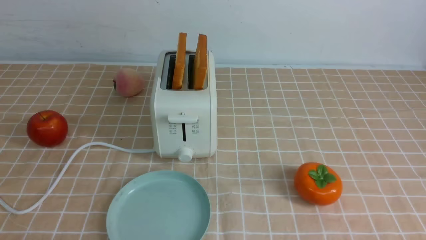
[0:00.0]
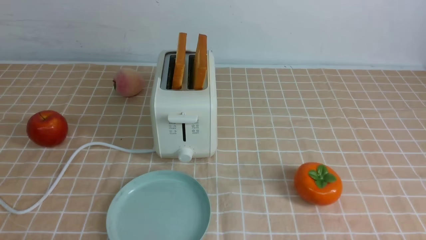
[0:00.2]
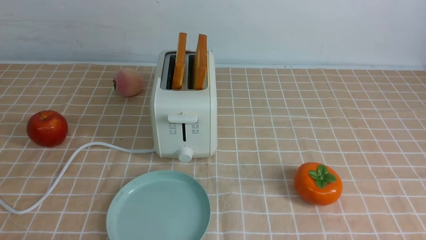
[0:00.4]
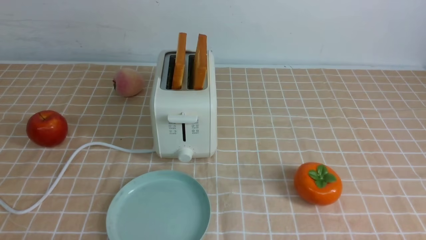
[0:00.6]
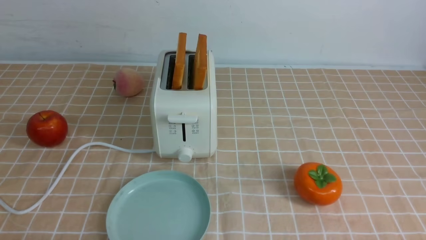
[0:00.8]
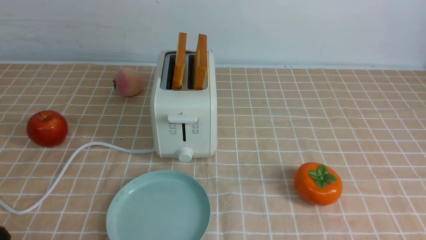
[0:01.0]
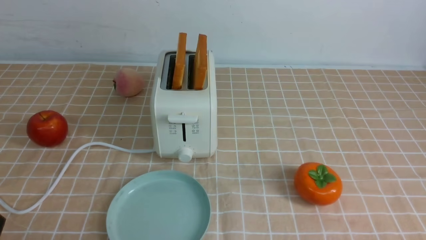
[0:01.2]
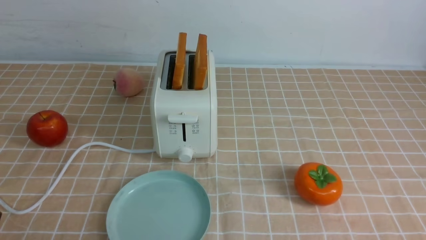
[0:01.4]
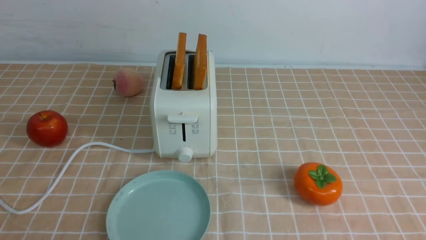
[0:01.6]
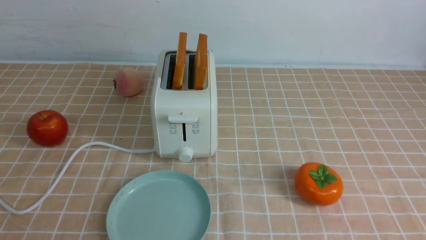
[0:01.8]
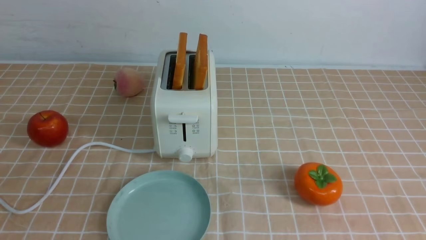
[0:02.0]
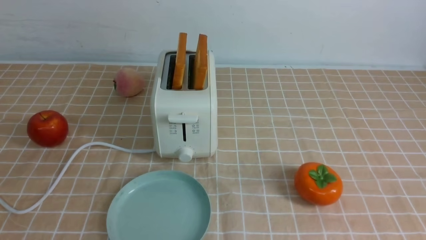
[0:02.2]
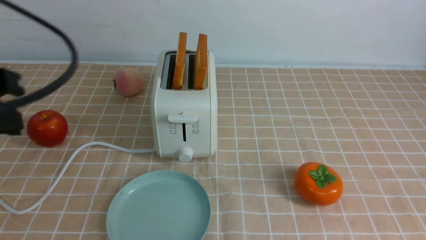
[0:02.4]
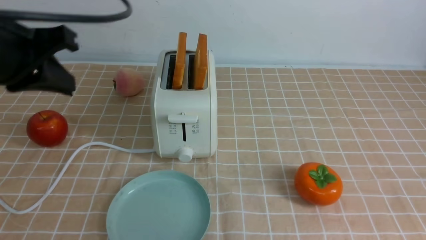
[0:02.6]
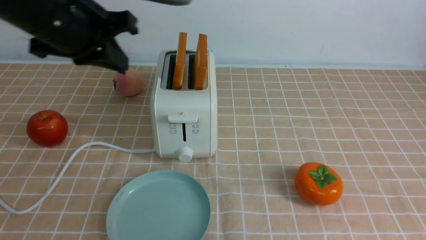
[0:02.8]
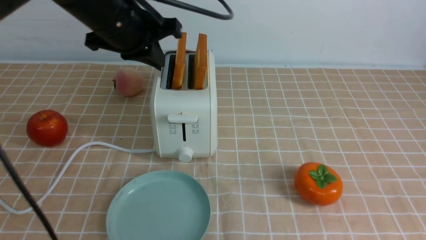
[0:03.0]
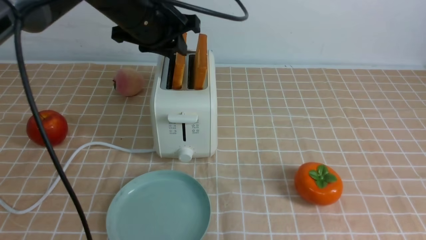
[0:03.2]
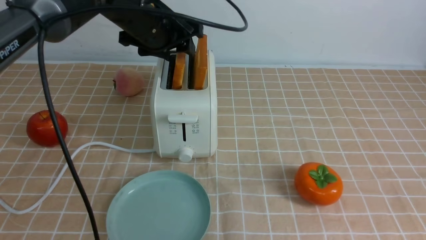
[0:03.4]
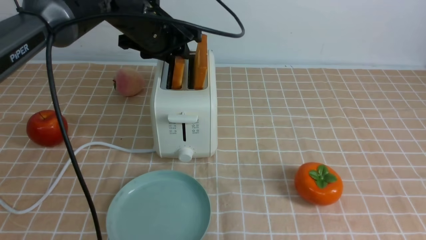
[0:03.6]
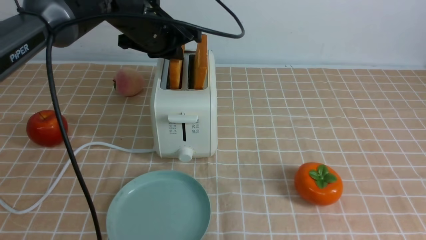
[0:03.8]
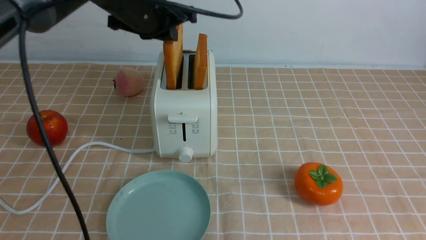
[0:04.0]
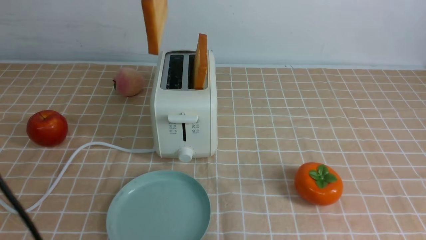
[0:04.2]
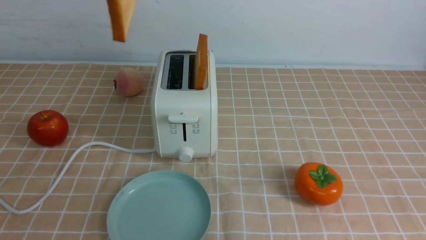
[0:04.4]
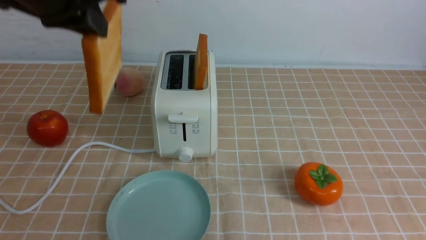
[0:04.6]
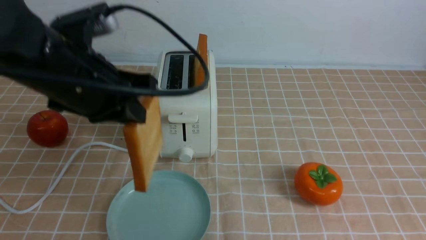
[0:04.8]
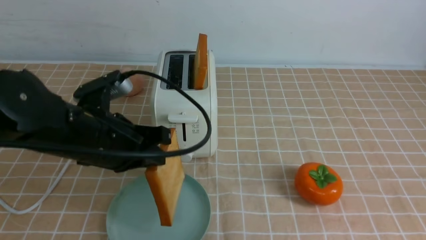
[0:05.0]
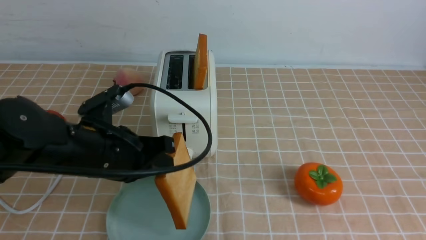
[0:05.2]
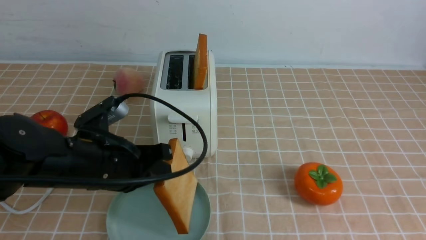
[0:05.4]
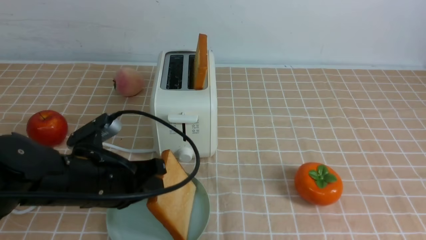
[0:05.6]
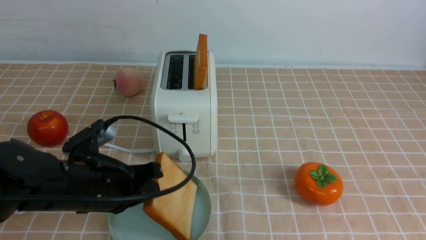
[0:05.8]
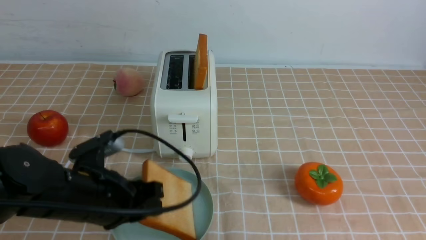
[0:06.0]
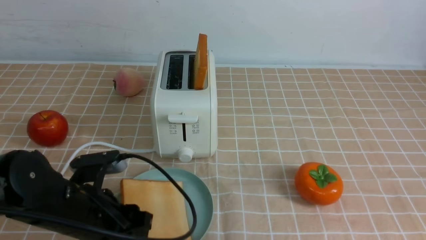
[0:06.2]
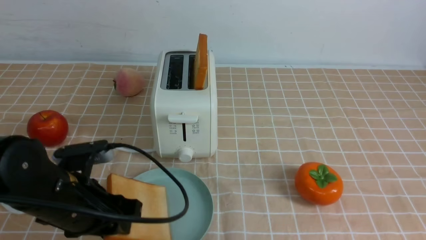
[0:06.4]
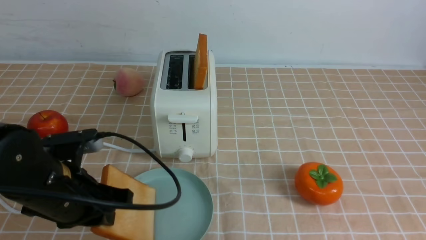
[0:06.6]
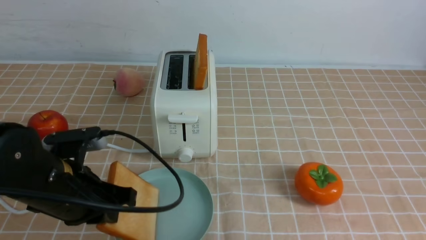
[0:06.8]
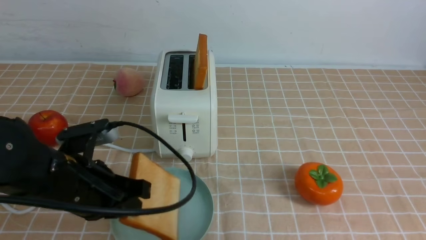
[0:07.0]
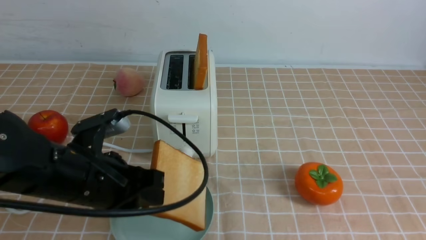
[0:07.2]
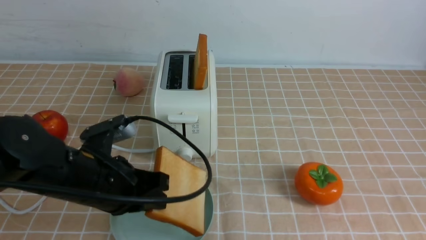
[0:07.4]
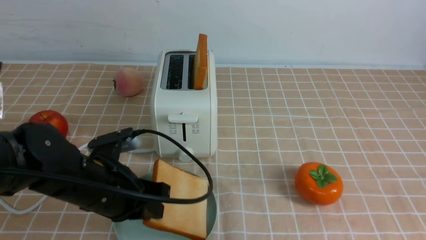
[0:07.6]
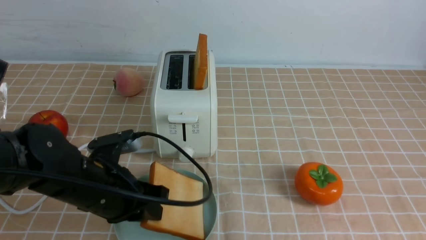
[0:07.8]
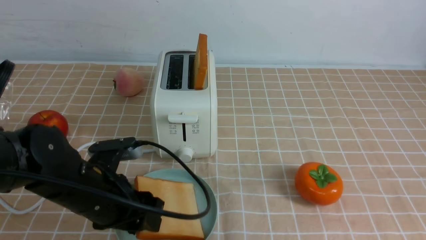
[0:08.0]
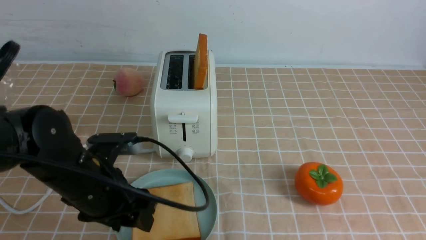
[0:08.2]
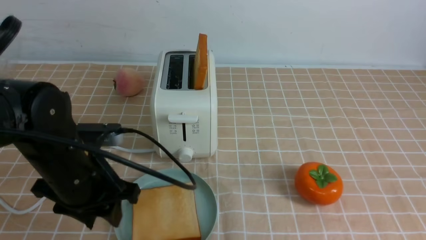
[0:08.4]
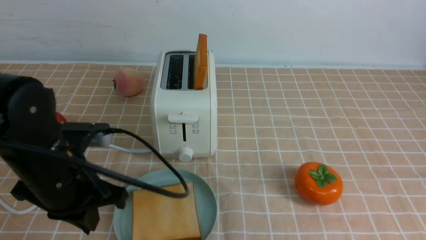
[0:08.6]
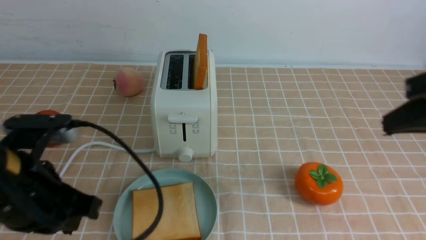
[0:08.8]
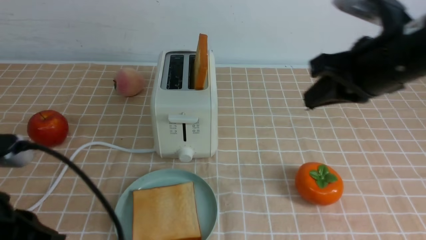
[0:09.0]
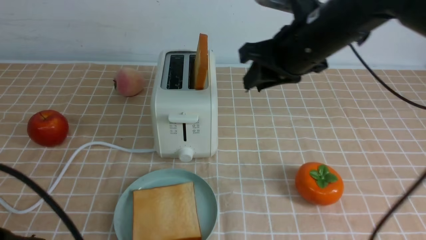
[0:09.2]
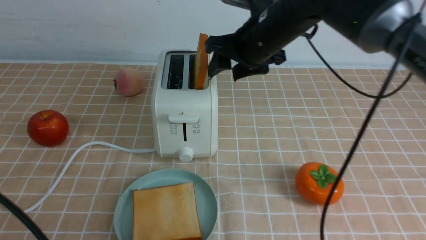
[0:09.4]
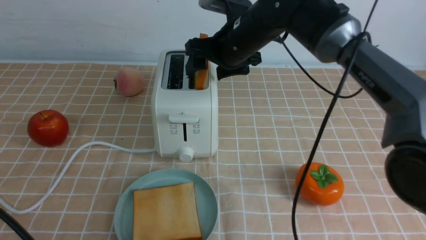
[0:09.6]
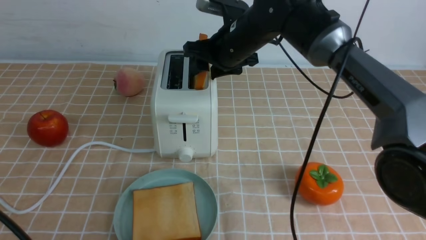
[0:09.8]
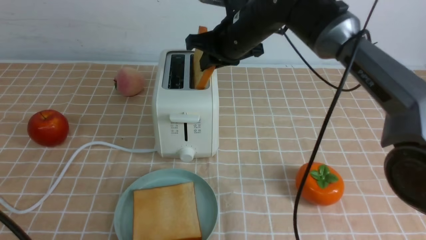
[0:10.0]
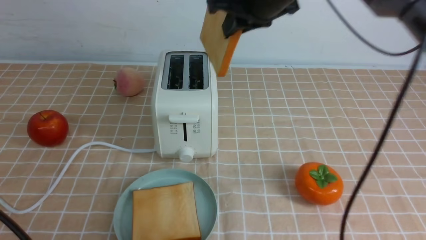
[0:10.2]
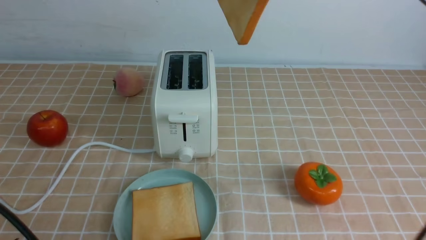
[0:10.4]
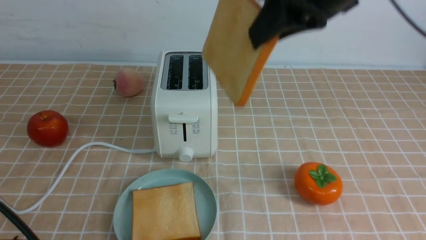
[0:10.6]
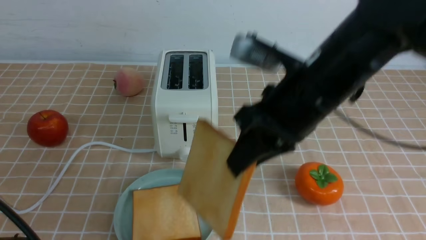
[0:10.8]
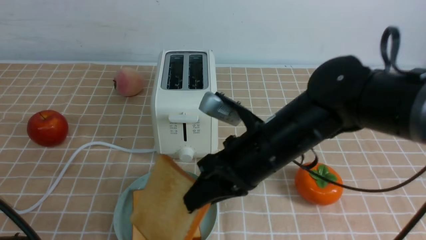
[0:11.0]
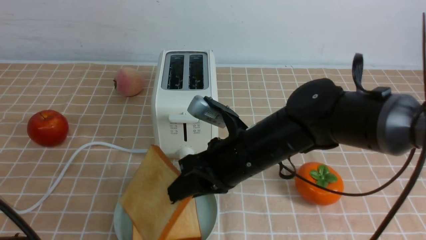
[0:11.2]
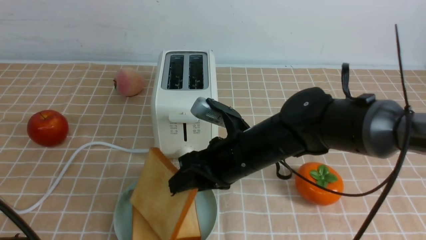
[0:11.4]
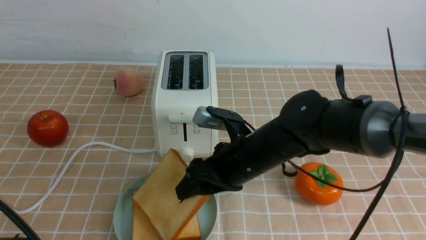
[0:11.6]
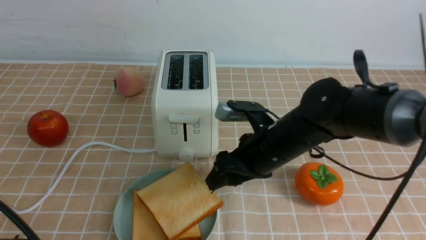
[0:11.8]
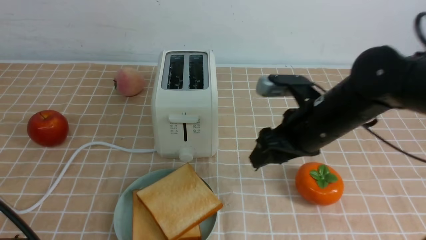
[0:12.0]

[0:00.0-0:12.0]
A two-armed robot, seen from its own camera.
Task of the whole recording: take toasted bread from bread machine on light coffee tablecloth place on plate.
Step, 0:00.0 to 0:04.0: use the left arm to take out a slice of bread.
Step, 0:04.2 to 0:08.2: use the left arm to put a slice of bread into the empty plate.
Step, 0:08.4 to 0:10.0: use the right arm to take out a slice of bread.
Step, 0:10.2 to 0:11.6: use the right arm to put a slice of bread into the plate.
0:01.6 to 0:03.0: The right gripper is displaced upward by some 15 cm, and closes. The left gripper heads forward and upward, covering about 35 cm, and closes up.
0:03.0 to 0:04.4: The left gripper goes roughly 10 cm upward, and opens and closes again.
0:04.4 to 0:06.0: The left gripper travels downward by about 25 cm, and opens its fingers.
0:06.0 to 0:07.6: The left gripper opens, then closes once more.
0:07.6 to 0:09.0: The right gripper is displaced forward and to the left by some 20 cm, while the left gripper goes roughly 15 cm backward, upward and to the left, and opens, then closes again.
0:09.0 to 0:10.4: The right gripper is displaced to the left, forward and upward by roughly 15 cm, and opens and closes again. Meanwhile the left gripper heads backward, covering about 10 cm.
0:10.4 to 0:12.0: The right gripper heads downward, covering approximately 20 cm, and opens.

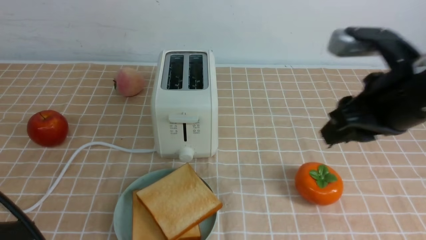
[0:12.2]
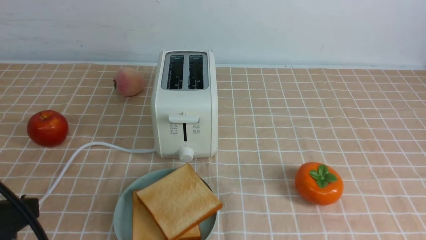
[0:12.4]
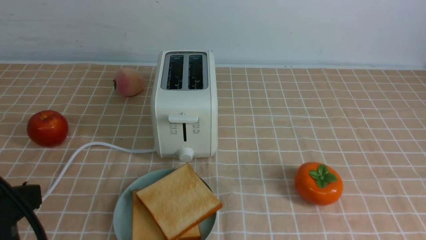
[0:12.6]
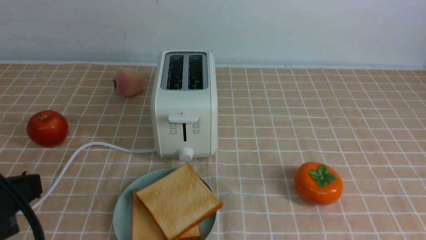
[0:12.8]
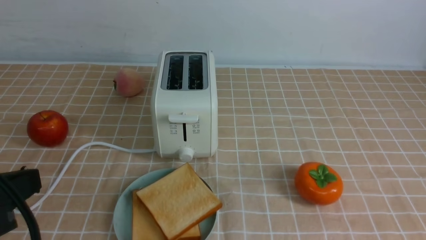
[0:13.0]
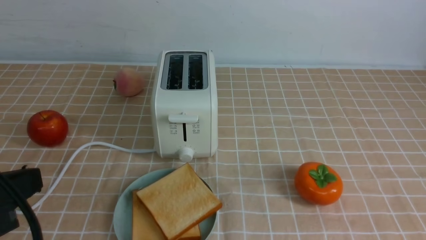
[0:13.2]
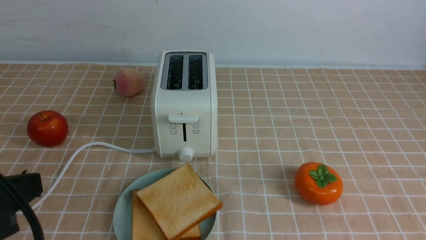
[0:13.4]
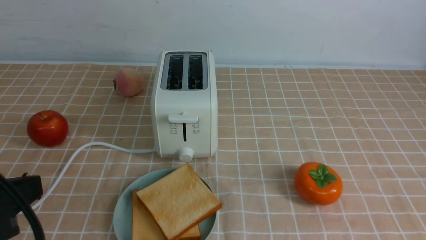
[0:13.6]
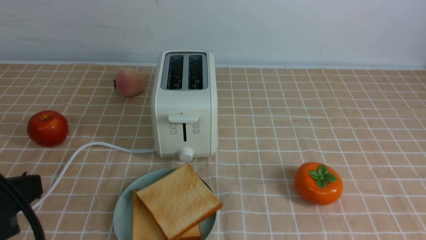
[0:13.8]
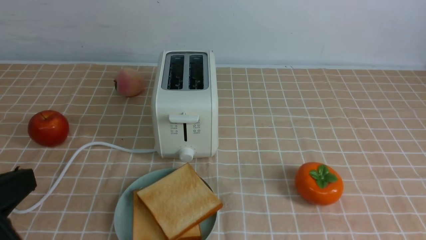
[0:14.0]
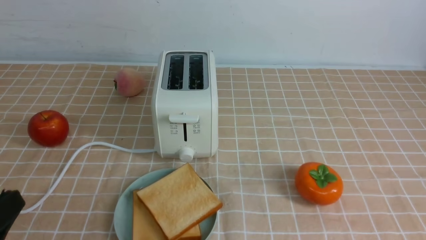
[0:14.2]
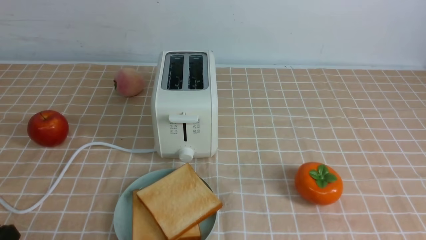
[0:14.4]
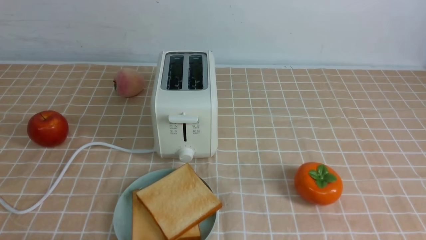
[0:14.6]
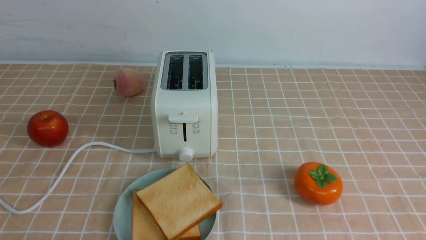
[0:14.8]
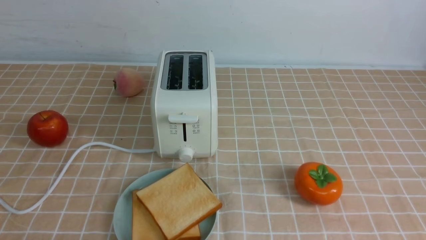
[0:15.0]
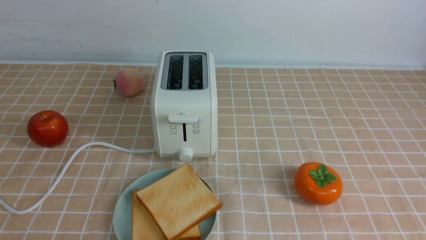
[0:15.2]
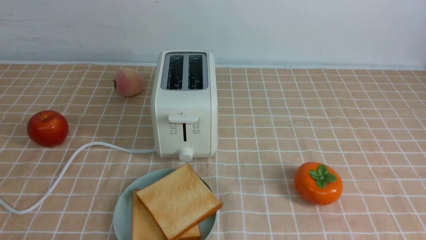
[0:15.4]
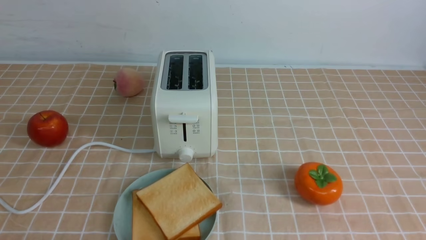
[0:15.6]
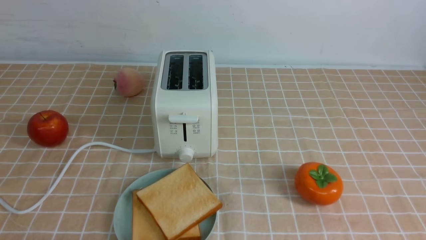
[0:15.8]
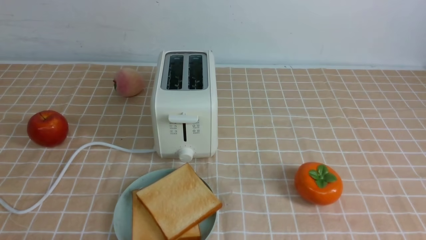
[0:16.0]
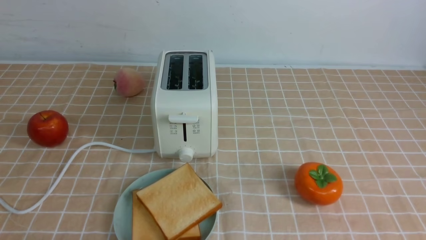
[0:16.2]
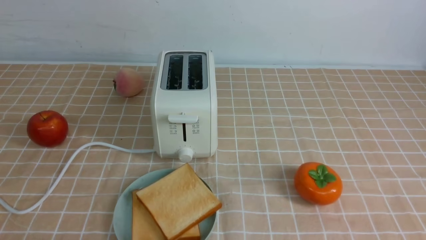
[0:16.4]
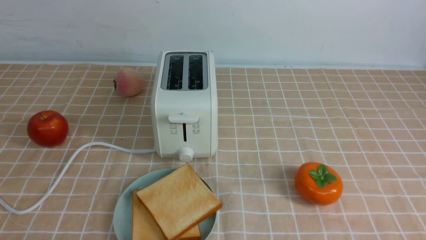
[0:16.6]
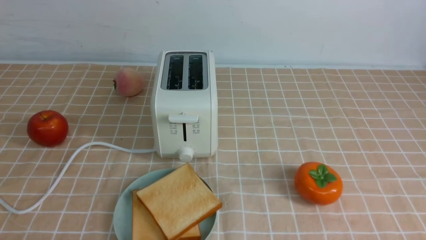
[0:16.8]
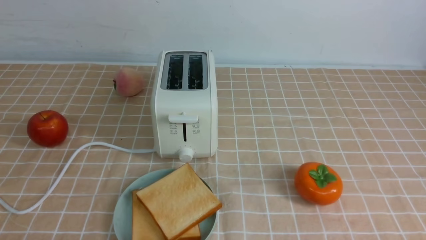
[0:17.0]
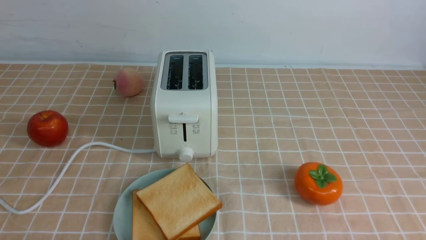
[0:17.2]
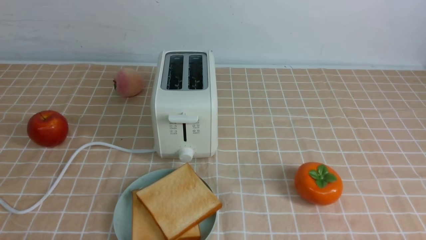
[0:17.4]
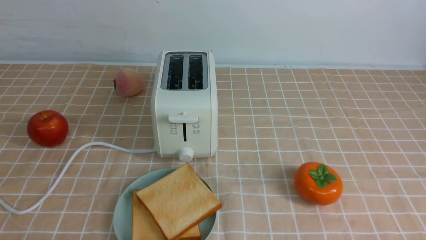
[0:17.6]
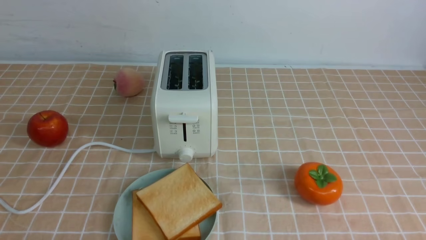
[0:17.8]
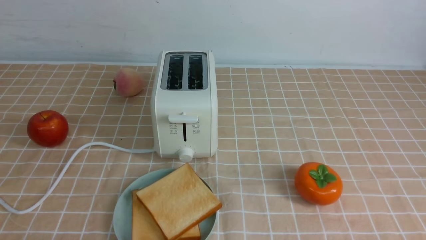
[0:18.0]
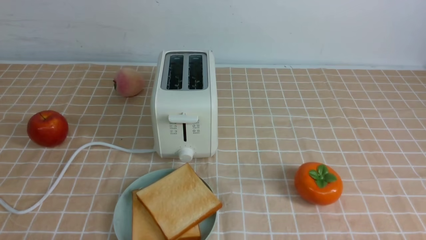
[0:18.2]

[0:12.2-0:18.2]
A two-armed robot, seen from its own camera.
Task of the whole recording: take toasted bread from bread machine on light coffee tablecloth place on plate.
0:12.2 to 0:13.8: The right gripper travels backward and to the right by roughly 30 cm, and closes up.
0:13.8 to 0:15.2: The left gripper shifts some 15 cm downward.
